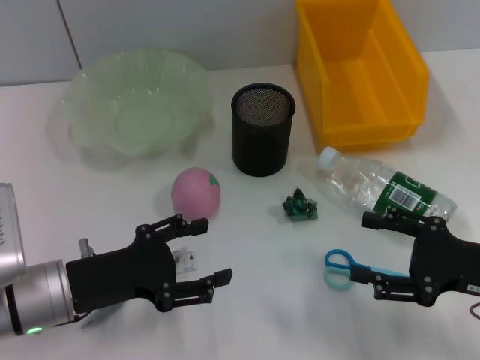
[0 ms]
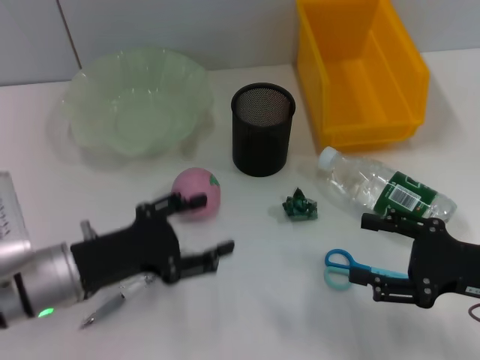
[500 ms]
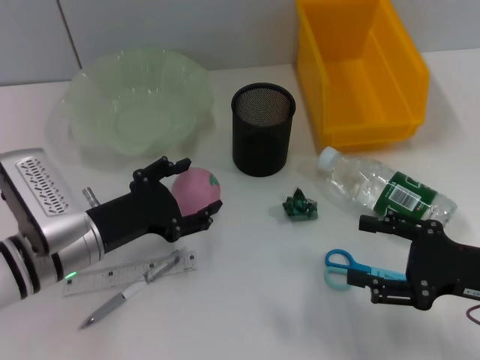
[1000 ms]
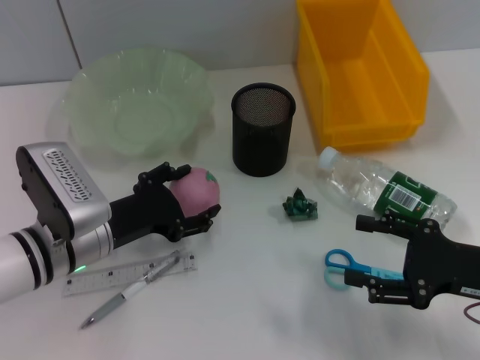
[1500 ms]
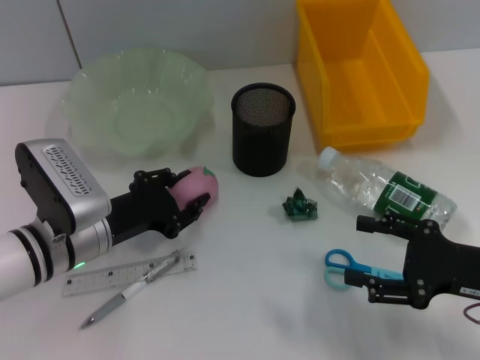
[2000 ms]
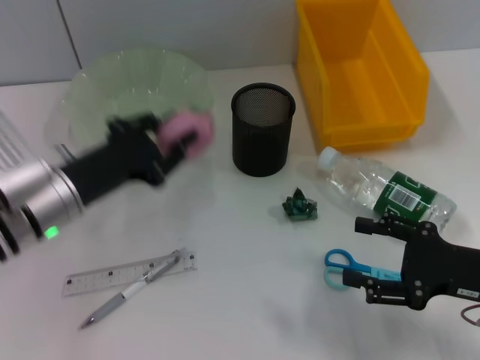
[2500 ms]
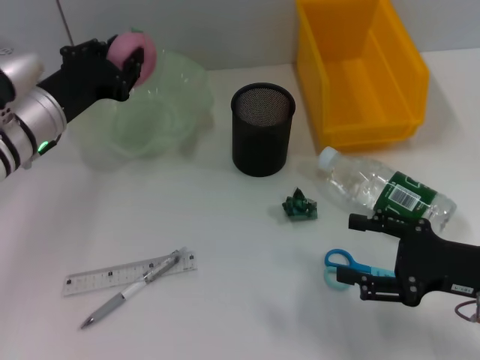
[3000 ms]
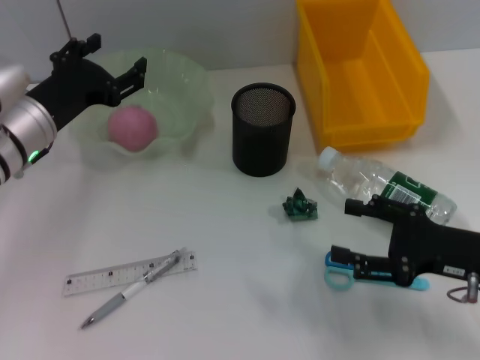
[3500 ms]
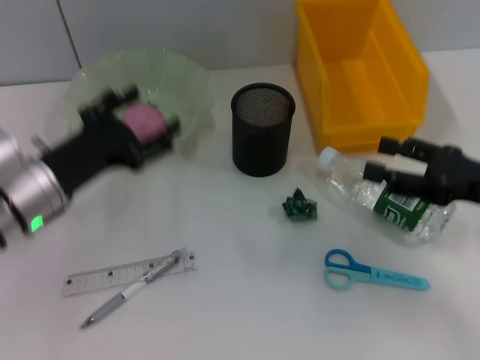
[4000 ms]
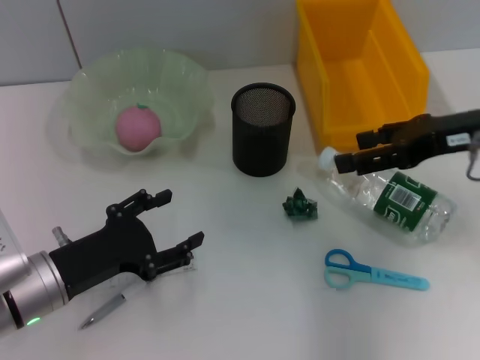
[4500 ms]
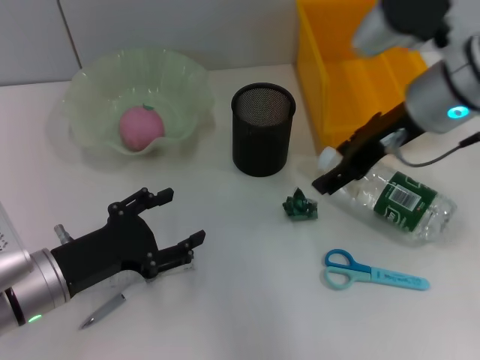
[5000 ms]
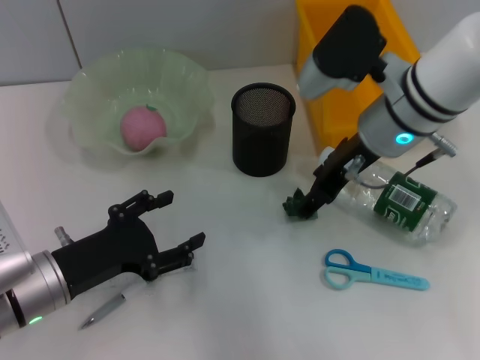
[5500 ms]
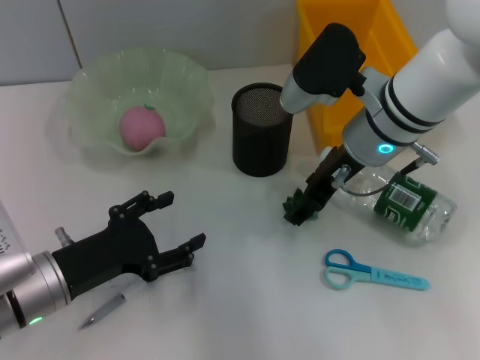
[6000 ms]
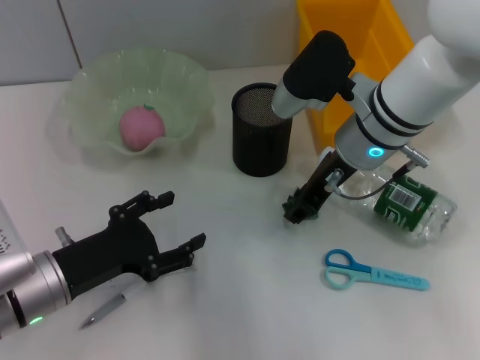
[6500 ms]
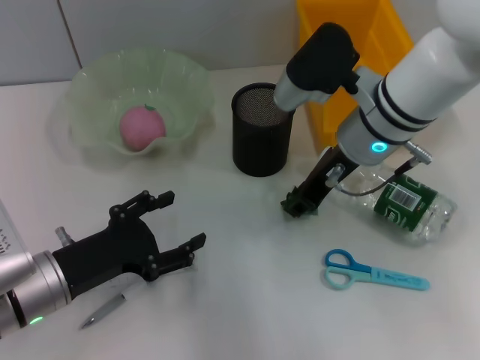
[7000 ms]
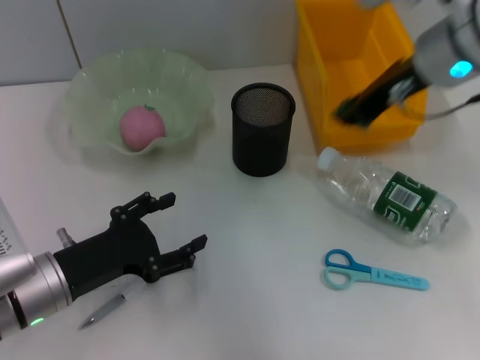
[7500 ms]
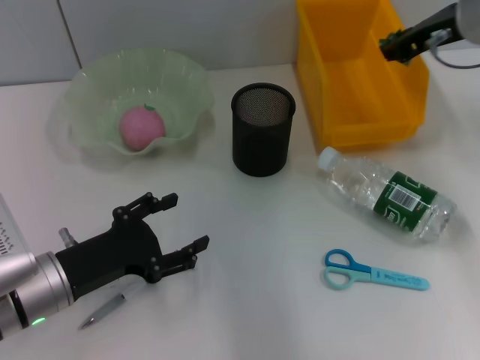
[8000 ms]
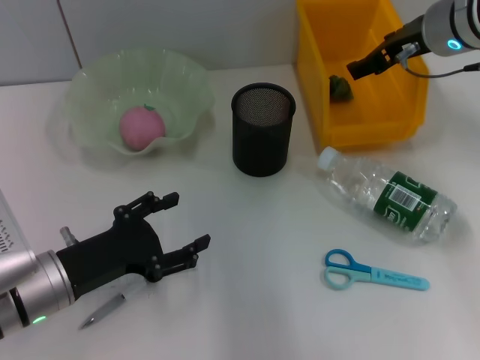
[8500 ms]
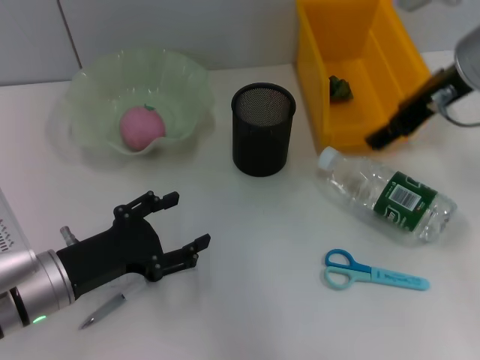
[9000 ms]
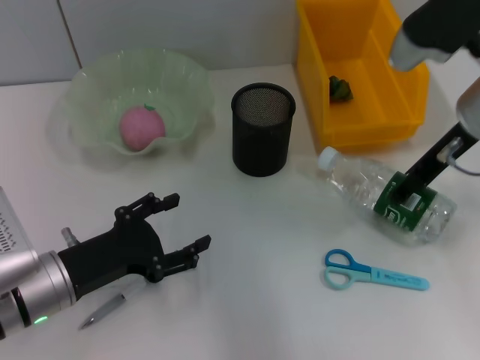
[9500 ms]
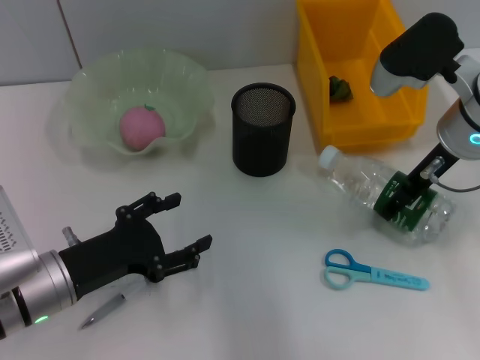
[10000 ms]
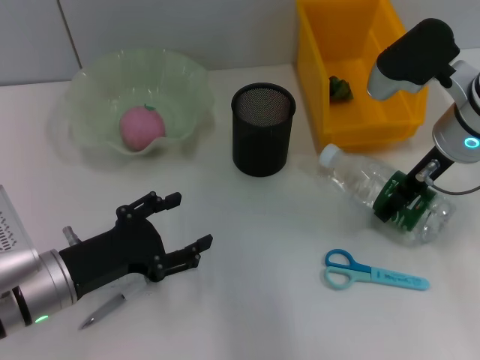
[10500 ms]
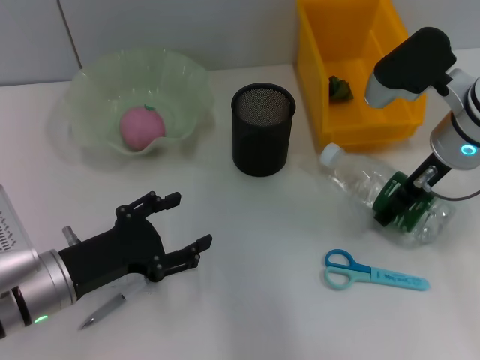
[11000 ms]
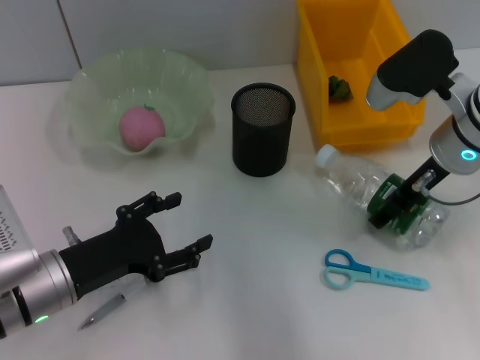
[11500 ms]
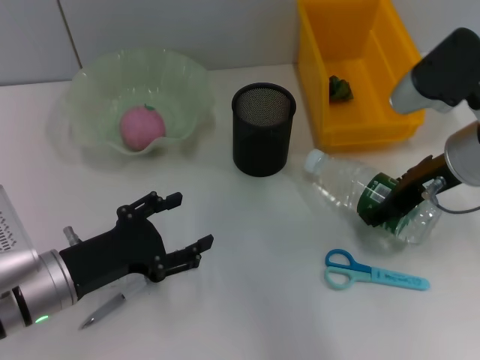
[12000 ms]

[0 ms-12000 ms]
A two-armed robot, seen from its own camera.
Step, 0 ms to 2000 ms: Grab the peach with the left hand.
Step, 2500 ms to 3500 ms: Place the peach into the fruit bowl with the left hand.
Step, 4500 ms to 6500 ms: Grab the plastic with the right hand.
Step, 7500 ms to 8500 ms: Place the plastic into the trash can with the right hand.
Step, 9000 ms to 11500 ms: Grab the water bottle with the right hand.
0 ms to 2000 ms: The left gripper shifts some 5 cm forward.
2000 ms to 4000 ms: The right gripper moves approximately 5 cm, while the left gripper travels forward and back again, roughly 10 cm each way, and closes, then reopens.
4000 ms to 6000 ms: The left gripper moves backward, roughly 10 cm, while the right gripper shifts roughly 20 cm to the left and forward.
6000 ms to 8000 ms: The right gripper moves to the right and upward, roughly 10 cm, and closes.
8000 ms to 10000 ms: The right gripper travels downward by about 5 cm, and opens.
10000 ms to 12000 ms: The grippers stay close to where they were, moving slightly.

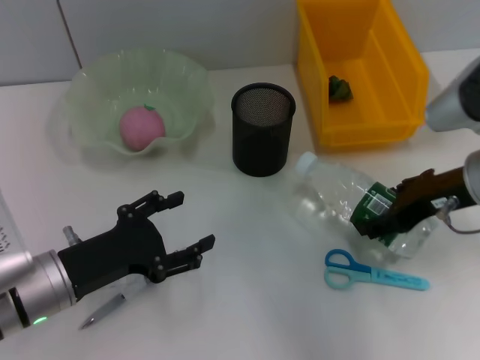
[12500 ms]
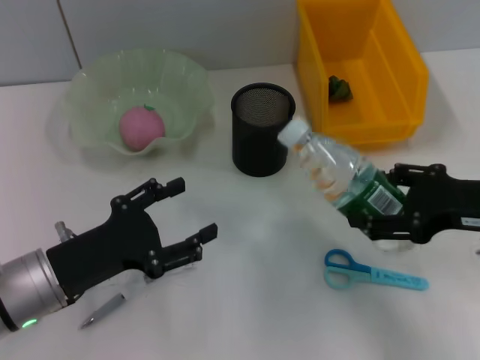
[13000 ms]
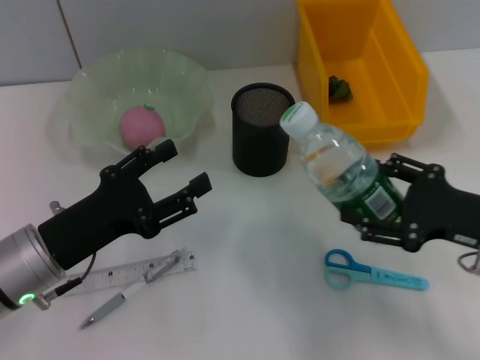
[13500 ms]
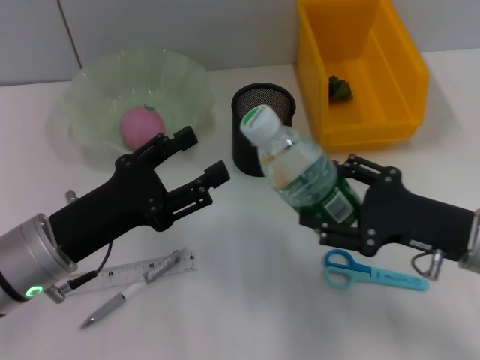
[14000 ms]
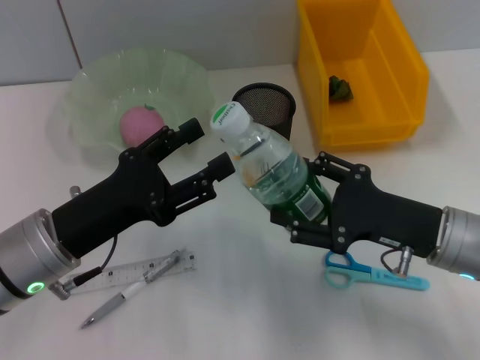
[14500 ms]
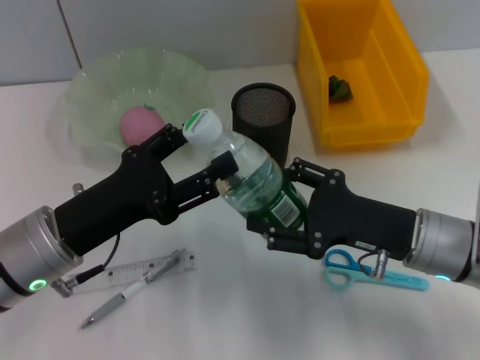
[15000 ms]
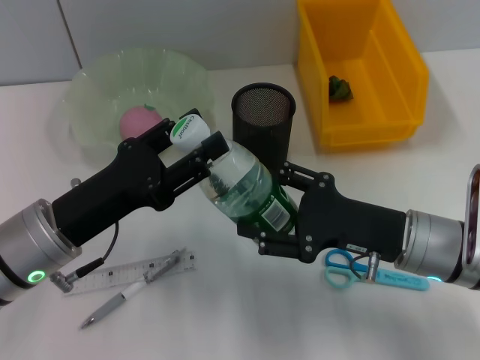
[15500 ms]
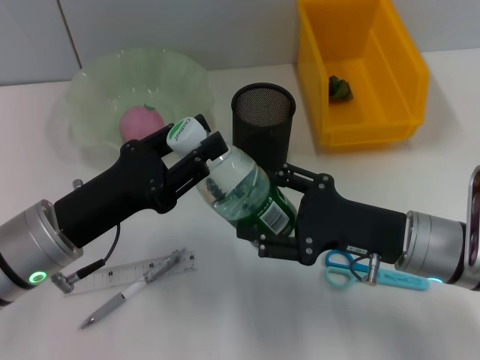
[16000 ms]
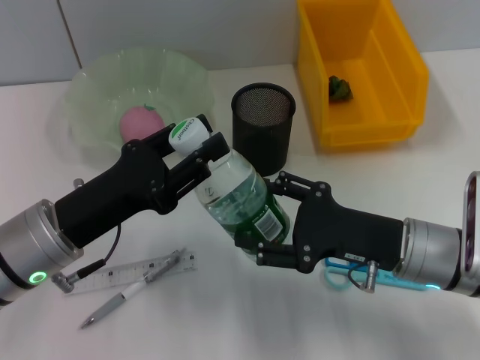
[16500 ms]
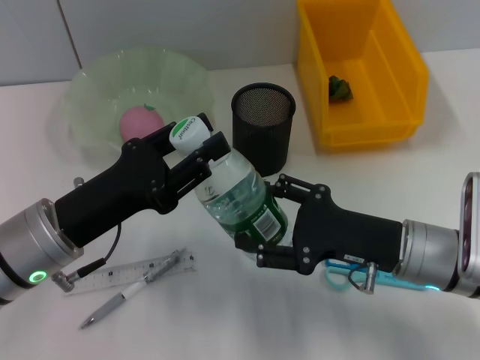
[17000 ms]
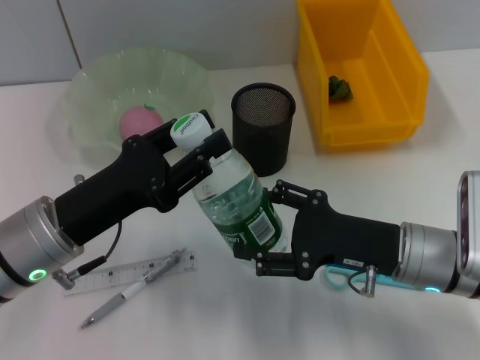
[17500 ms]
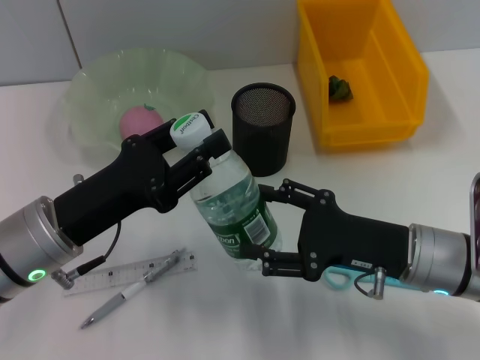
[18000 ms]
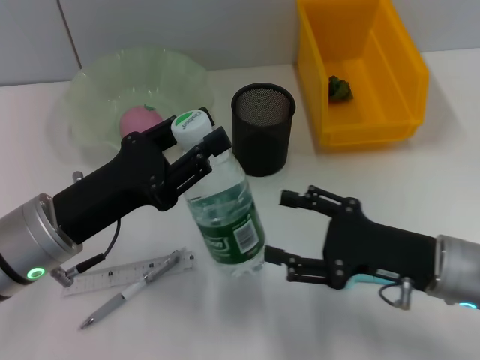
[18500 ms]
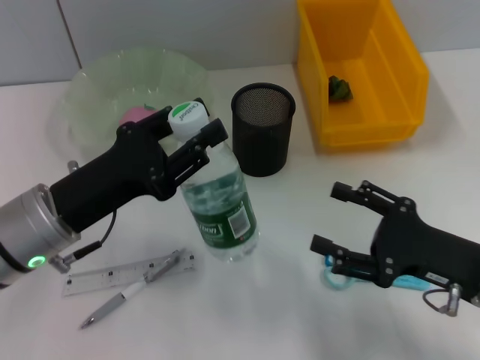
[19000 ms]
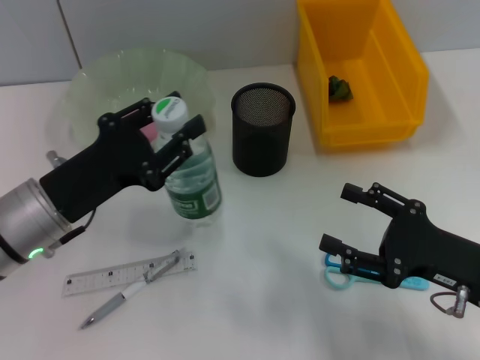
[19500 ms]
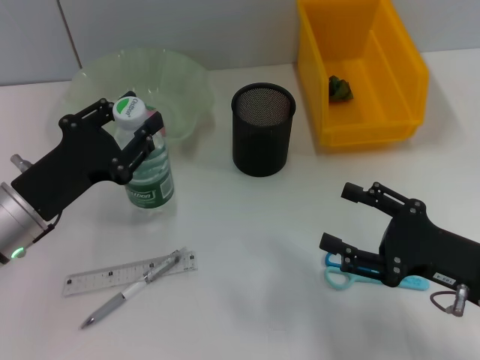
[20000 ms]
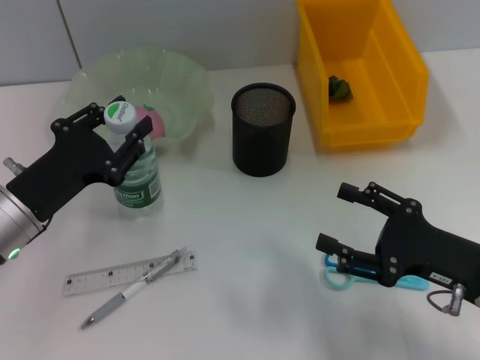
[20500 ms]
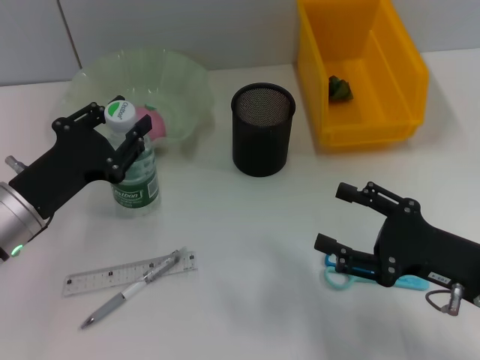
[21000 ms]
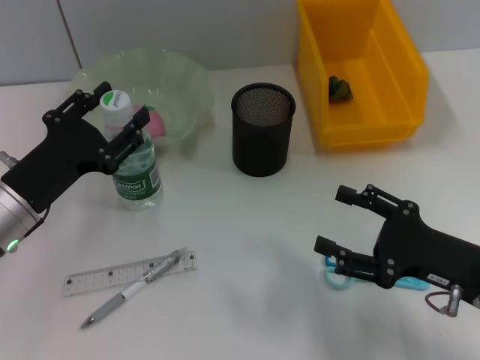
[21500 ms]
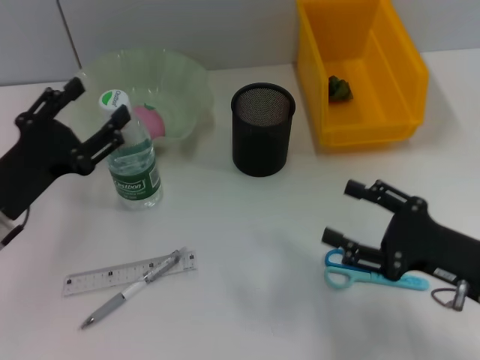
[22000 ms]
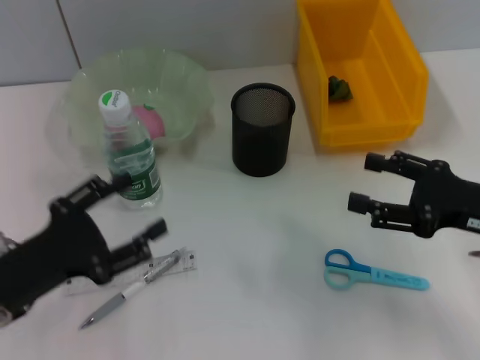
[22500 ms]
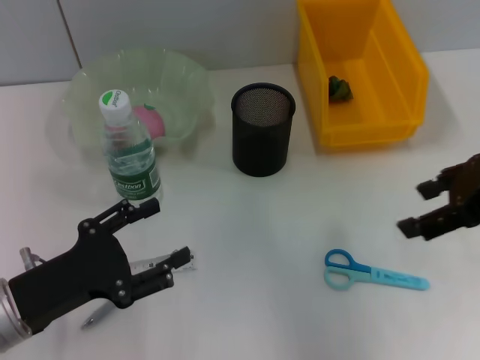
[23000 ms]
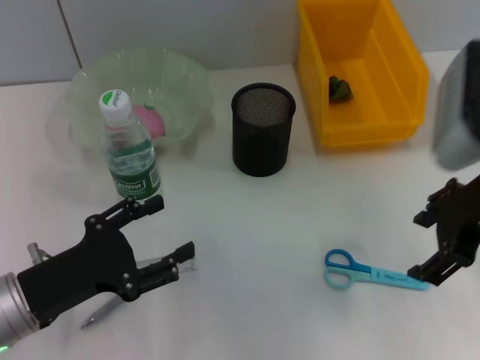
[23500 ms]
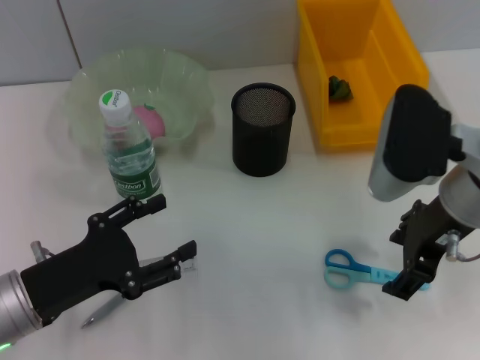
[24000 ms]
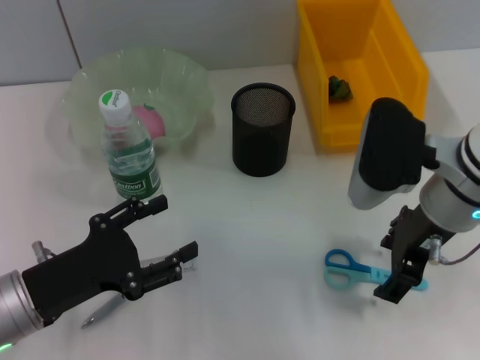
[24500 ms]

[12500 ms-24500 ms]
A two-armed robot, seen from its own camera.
Step, 12500 ms to 18500 ms: Pass the water bottle from the right hand to the left hand.
Step, 19000 ms to 21500 ms: Place the water bottle on the table with the left hand.
12500 ms to 14500 ms: The right gripper is displaced downward by about 10 cm.
14500 ms to 16500 ms: The left gripper closes.
16500 ms to 18500 ms: The grippers stay close to where they were, moving slightly.
18500 ms to 20500 ms: The left gripper shifts by approximately 5 cm.
20500 ms to 22500 ms: The right gripper moves approximately 5 cm. The left gripper travels backward by about 5 cm, and opens its fingers.
22500 ms to 24500 ms: The right gripper shifts some 15 cm to the left, forward and upward.

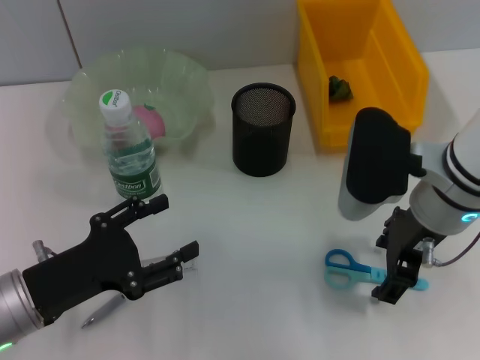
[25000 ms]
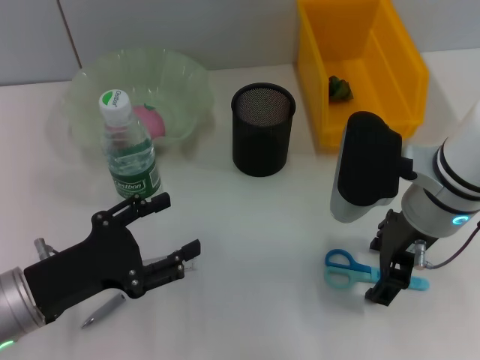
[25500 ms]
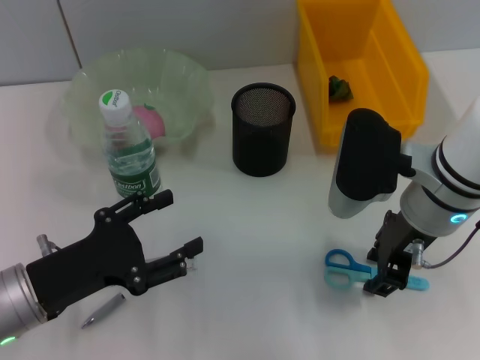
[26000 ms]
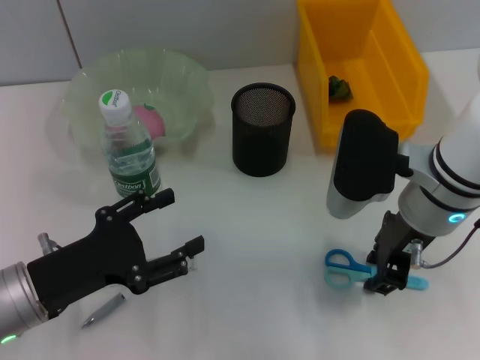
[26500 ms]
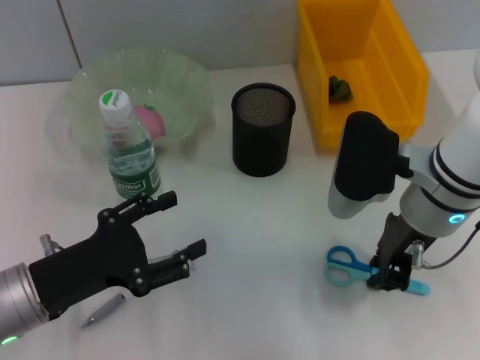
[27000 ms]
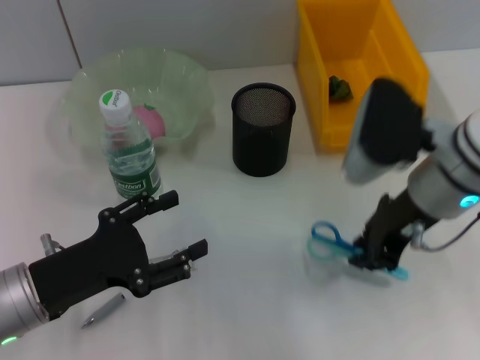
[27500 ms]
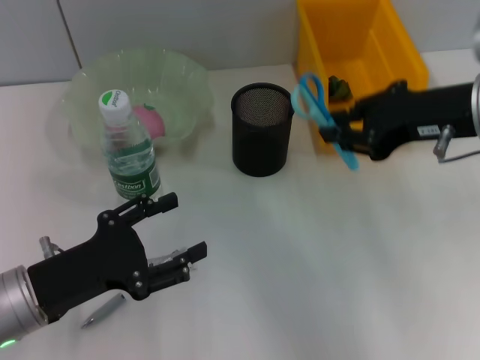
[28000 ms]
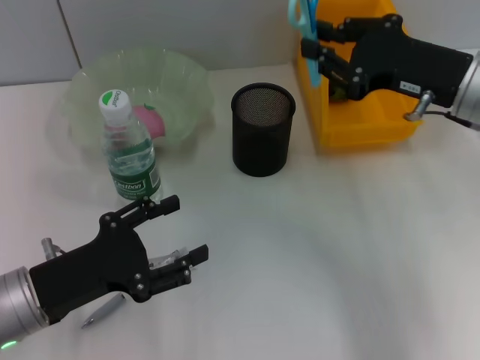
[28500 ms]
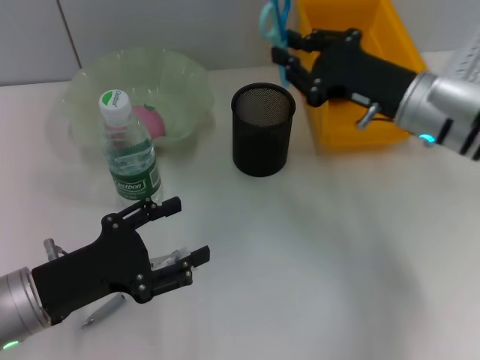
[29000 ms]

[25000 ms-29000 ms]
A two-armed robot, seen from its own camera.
25000 ms to 27000 ms: The right gripper closes up.
27000 ms to 29000 ms: The right gripper is displaced forward by about 5 cm, and travels upward and back again, roughly 5 cm each way.
